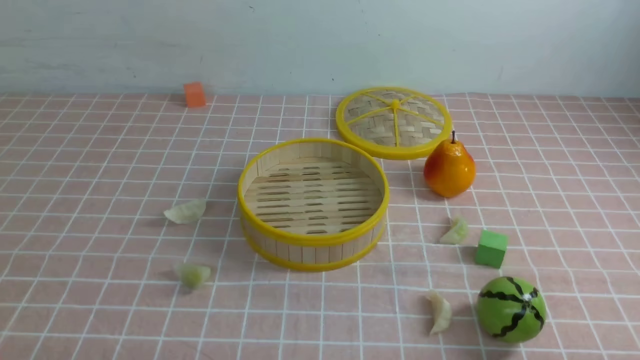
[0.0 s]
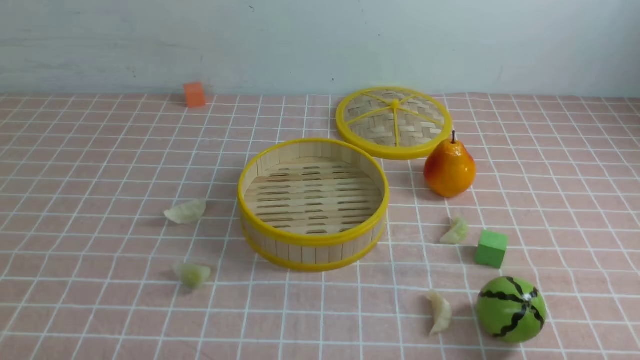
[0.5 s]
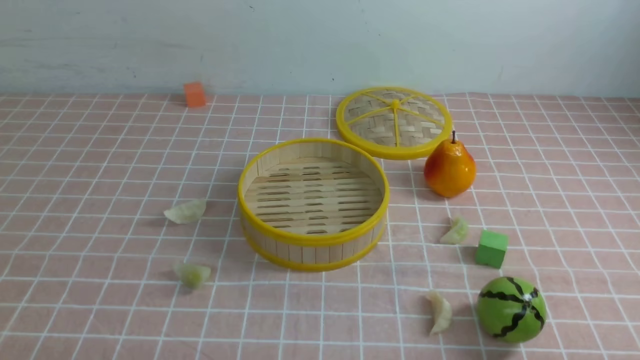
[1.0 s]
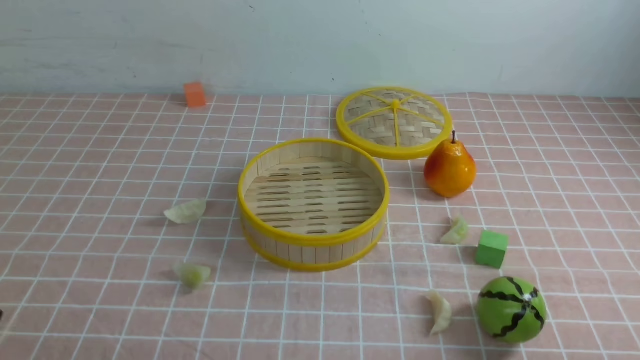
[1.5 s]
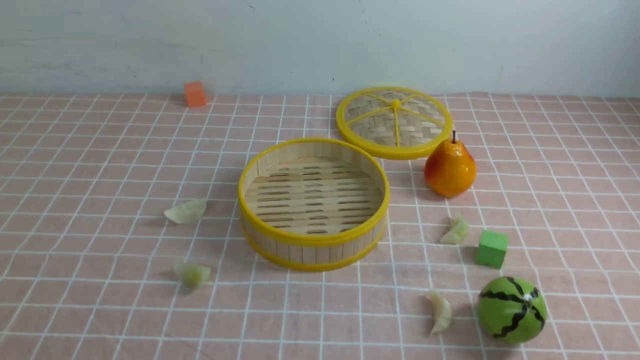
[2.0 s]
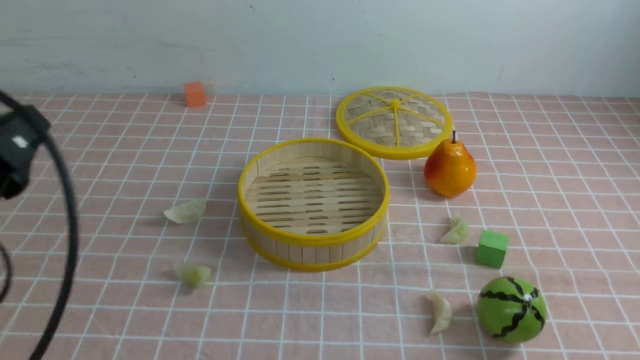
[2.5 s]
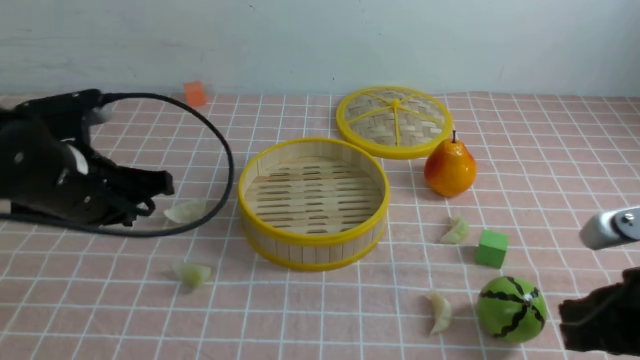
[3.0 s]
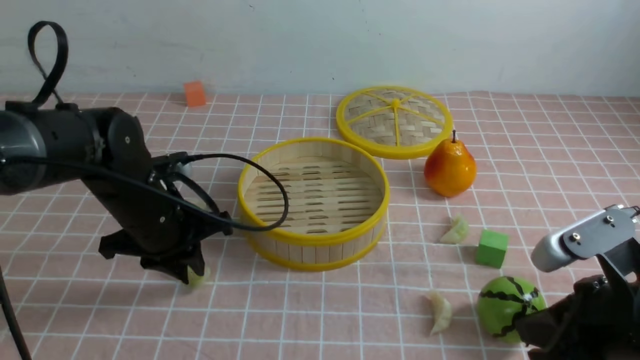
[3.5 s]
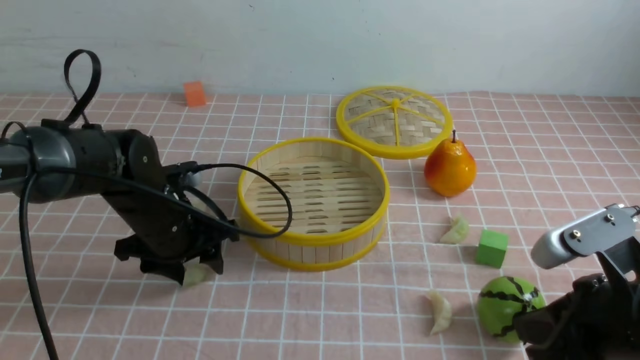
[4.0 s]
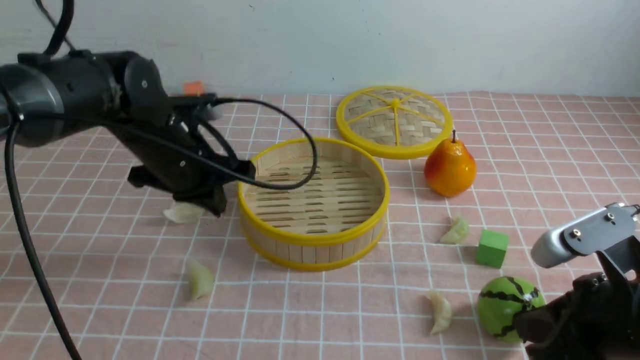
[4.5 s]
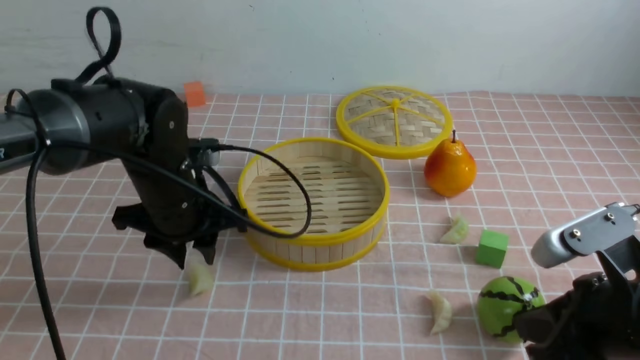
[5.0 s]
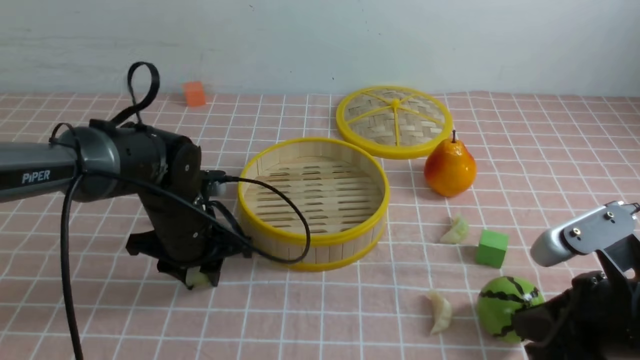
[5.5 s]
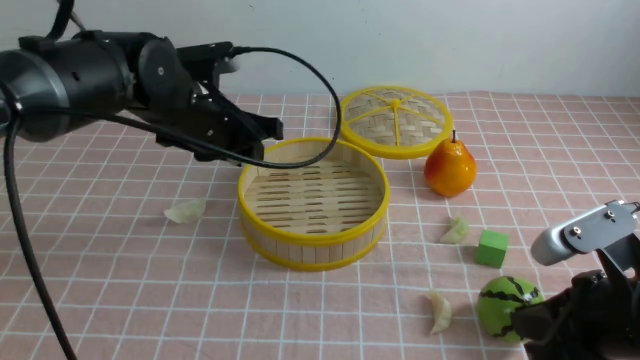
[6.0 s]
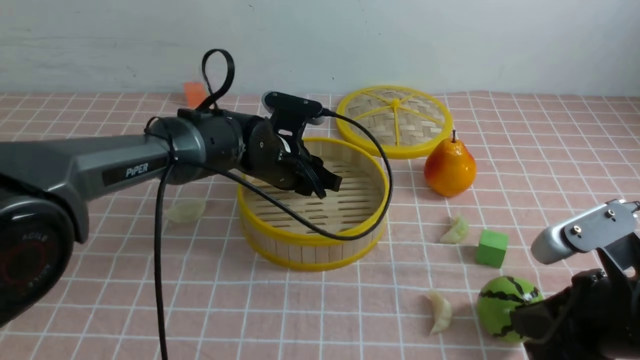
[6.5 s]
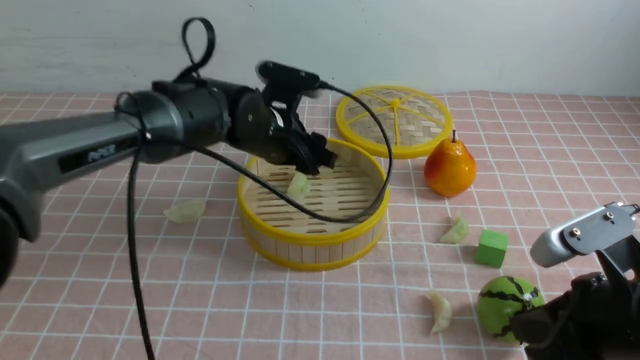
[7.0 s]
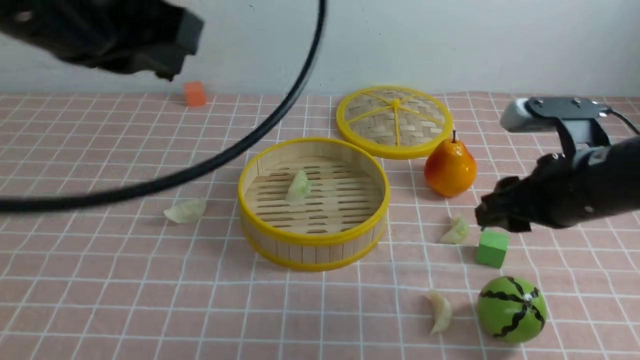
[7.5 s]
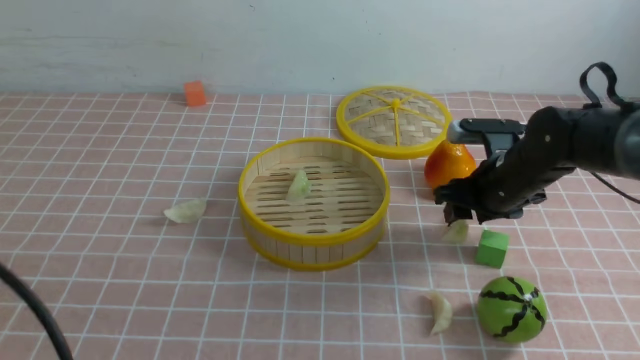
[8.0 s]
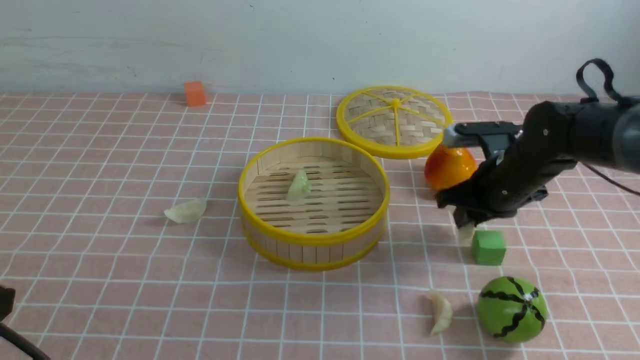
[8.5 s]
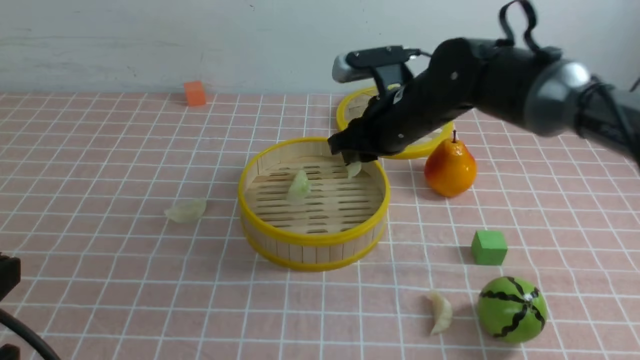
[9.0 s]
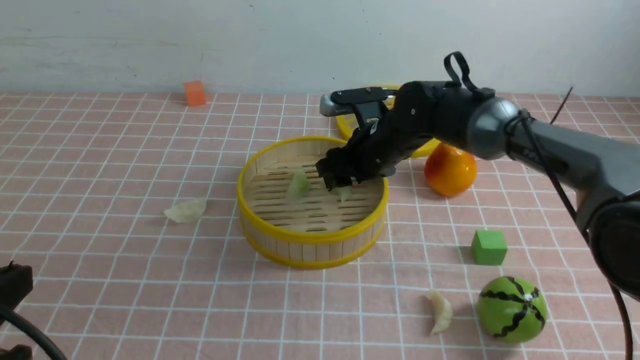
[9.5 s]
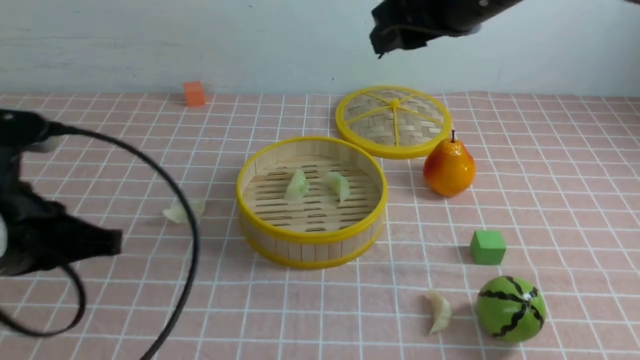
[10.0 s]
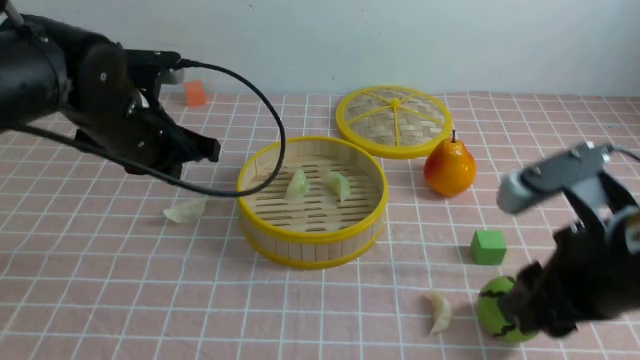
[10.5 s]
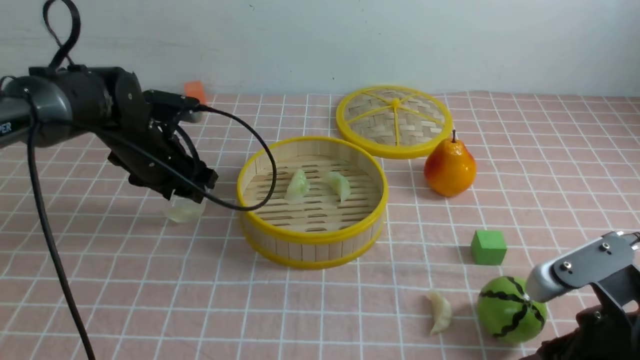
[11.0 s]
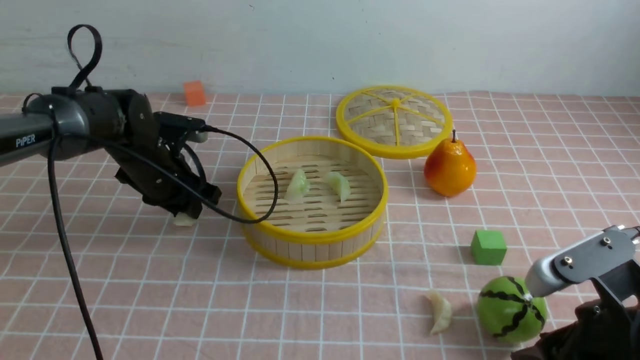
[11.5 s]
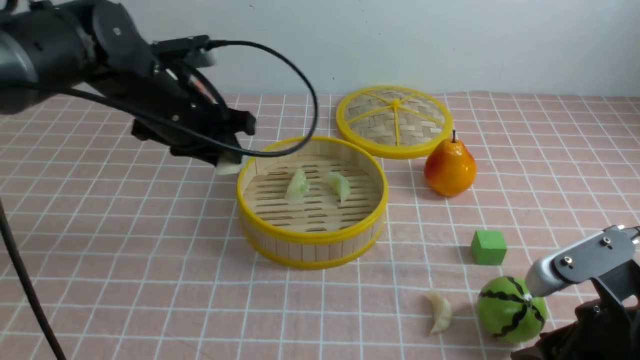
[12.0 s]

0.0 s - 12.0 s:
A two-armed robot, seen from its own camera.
Task of the whole recording: put the dumplings into the steamer on the table with the pink tablecloth.
Step, 0.0 s - 5.5 s: use the left arm to grab a dumpling.
Step, 6.0 s - 7.0 s: use the left arm to put the dumpling into the steamer.
Step, 7.5 s - 8.5 s: use the right arm to grab a dumpling.
Step, 9.0 s - 9.5 s: use the right arm to put the dumpling into the steamer.
Step, 10.0 s - 11.5 s: use the left arm to grab a dumpling.
2.0 s - 4.0 s: The left gripper goes roughly 30 cm forward, and closes, then opens again, while the right gripper is displaced forward and to the left by approximately 15 cm.
4.0 s - 6.0 s: The left gripper moves up and down over roughly 10 cm, changing direction 2 times, and closes and opens again.
6.0 s - 8.0 s: The right gripper goes about 20 cm forward, and opens; the left gripper heads backward and to the left, covering some 35 cm, and closes.
8.0 s - 10.0 s: The right gripper goes roughly 25 cm upward and to the left, and closes, then reopens. Meanwhile the left gripper travels forward by approximately 10 cm.
10.0 s - 12.0 s: The left gripper moves forward, roughly 20 cm, and opens. Meanwhile the right gripper shifts roughly 25 cm backward, downward and to the right.

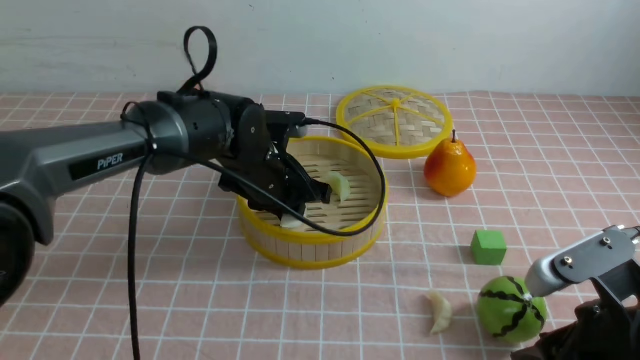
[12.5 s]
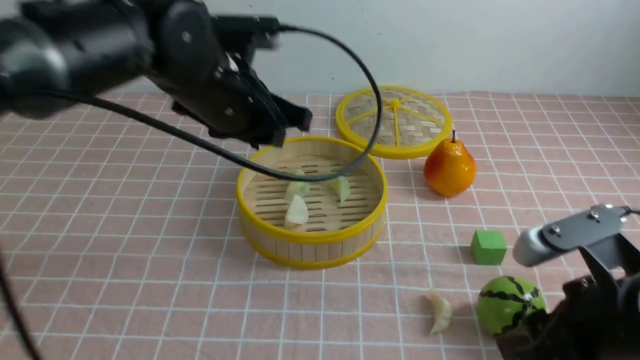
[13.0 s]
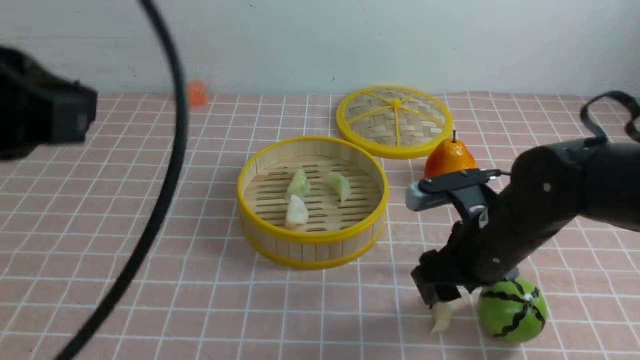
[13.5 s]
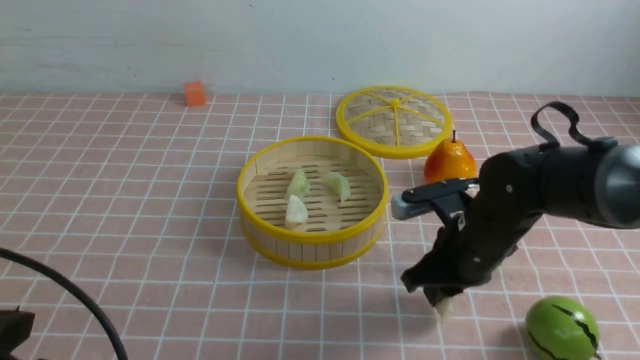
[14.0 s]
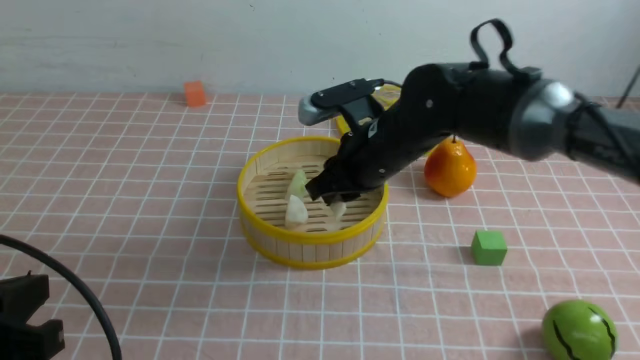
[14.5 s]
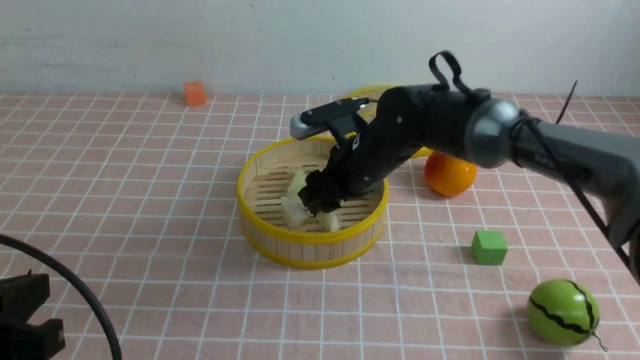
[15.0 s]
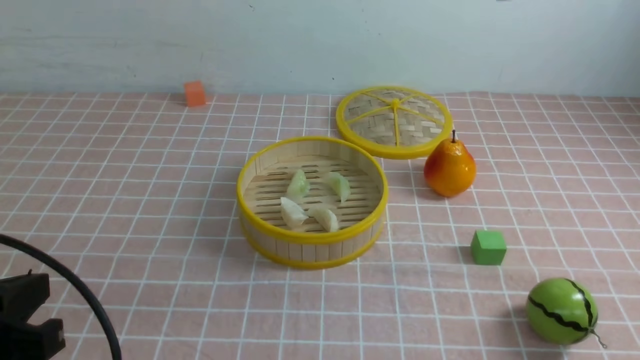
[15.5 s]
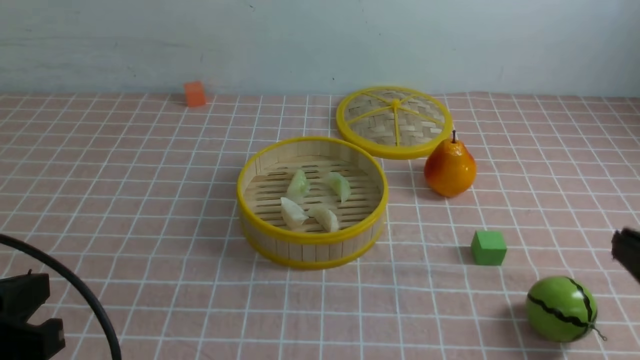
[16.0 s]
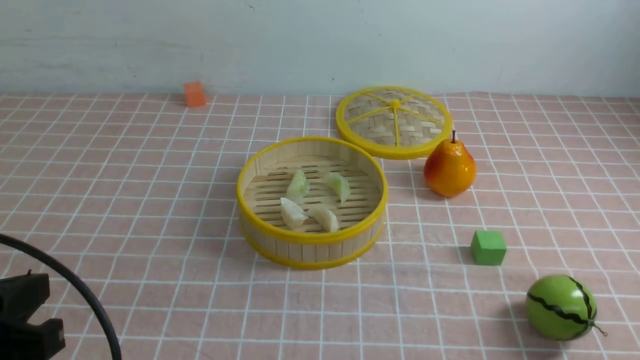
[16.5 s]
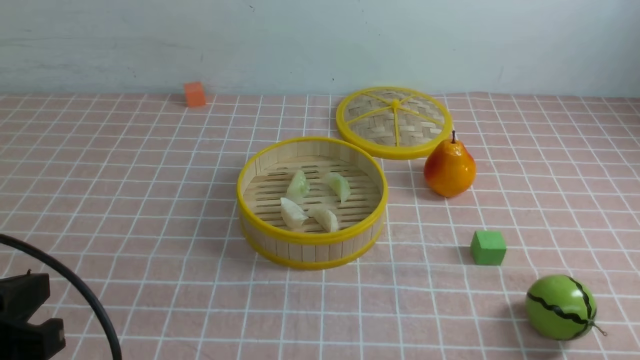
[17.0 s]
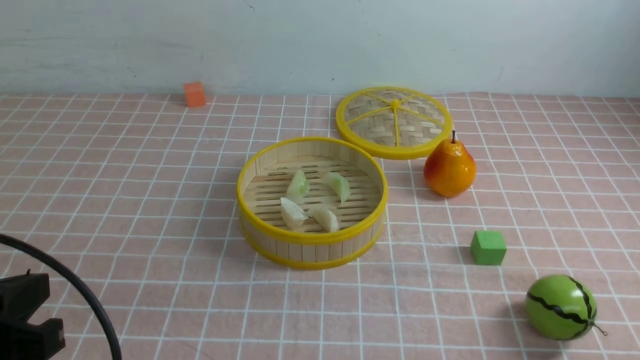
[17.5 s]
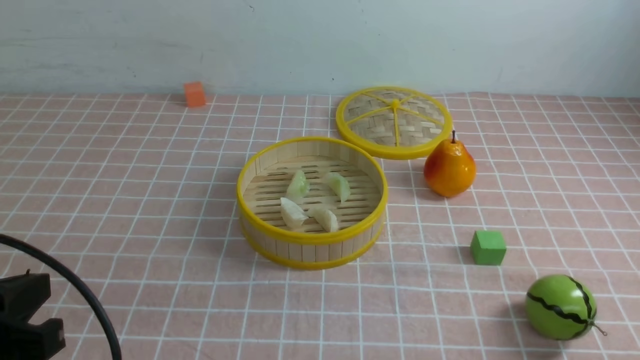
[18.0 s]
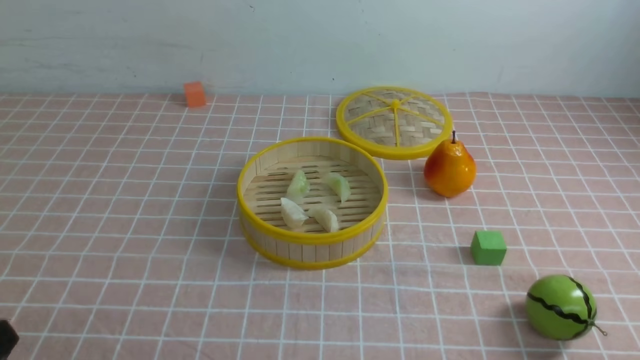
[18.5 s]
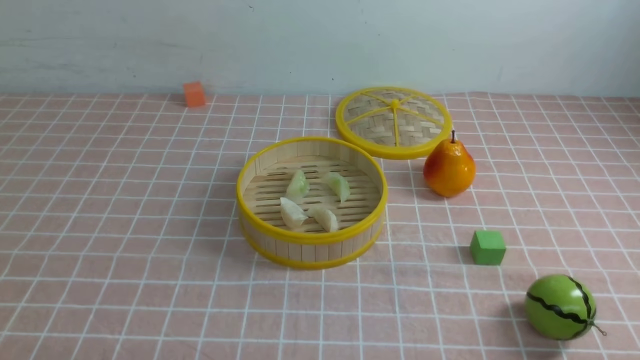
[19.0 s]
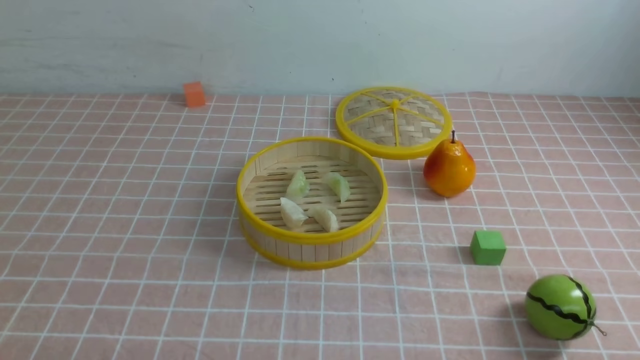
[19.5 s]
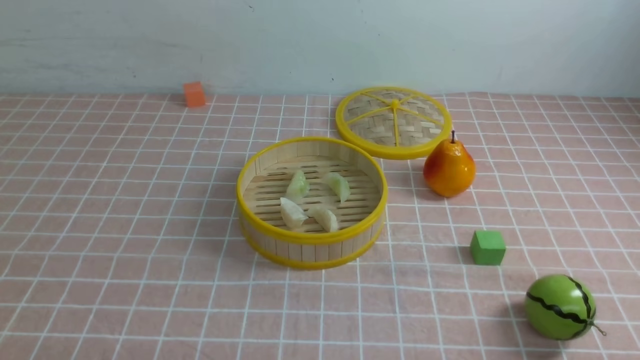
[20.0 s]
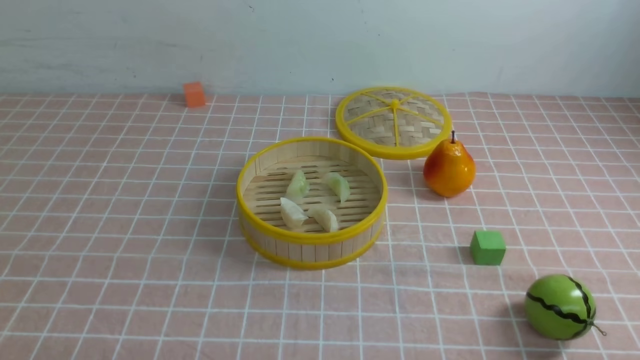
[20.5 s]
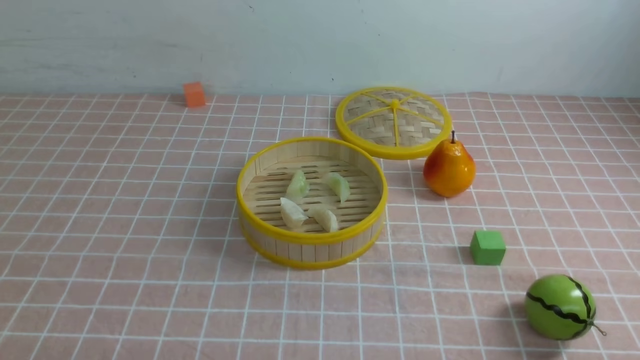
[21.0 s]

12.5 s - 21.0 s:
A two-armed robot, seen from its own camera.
Task of the whole recording: put the dumplings into the steamer on the table with the pink tablecloth.
Step, 13.0 s - 14.0 s: use the right arm to grab a dumpling.
Step, 14.5 s - 15.0 s: use the right arm to put the dumpling into the steamer.
12.5 s - 14.5 s: The right gripper moves forward and to the left, about 30 cm, and closes. Meanwhile the left gripper is displaced backward and to the left by roughly 35 cm, and closes its fingers.
14.5 s - 16.5 s: The right gripper shifts some 40 cm backward and to the right, and closes its fingers.
16.5 s - 19.0 s: The left gripper travels downward and backward by about 15 cm.
19.0 s - 21.0 s: Both grippers stay put.
